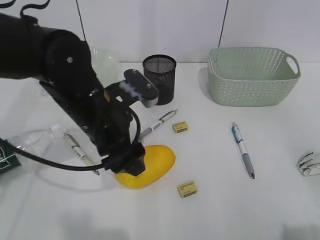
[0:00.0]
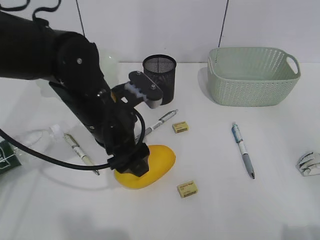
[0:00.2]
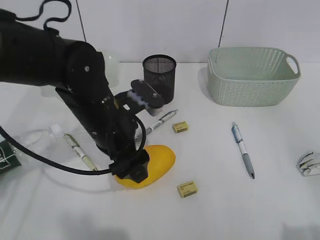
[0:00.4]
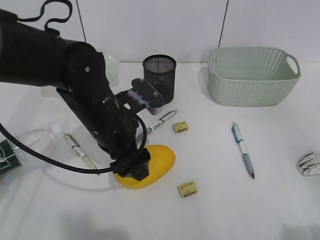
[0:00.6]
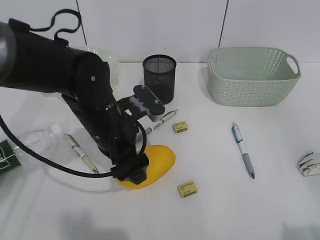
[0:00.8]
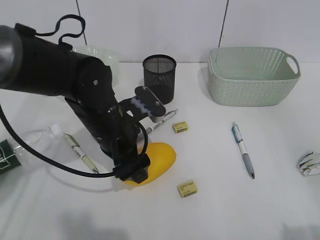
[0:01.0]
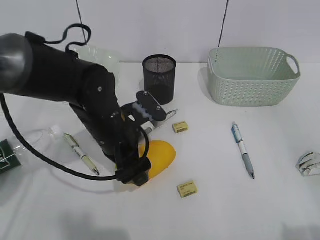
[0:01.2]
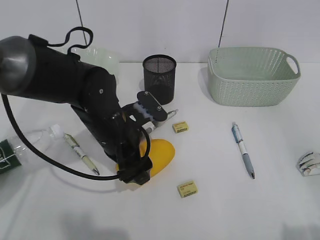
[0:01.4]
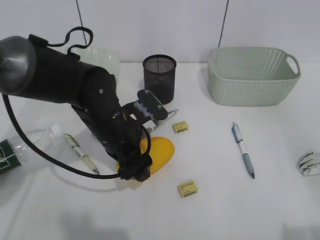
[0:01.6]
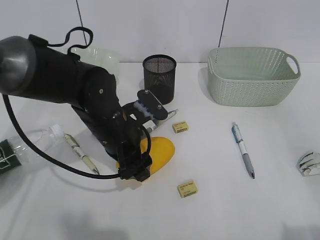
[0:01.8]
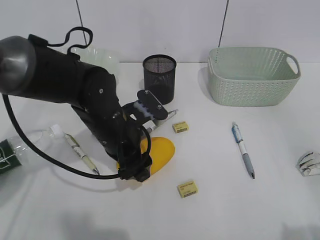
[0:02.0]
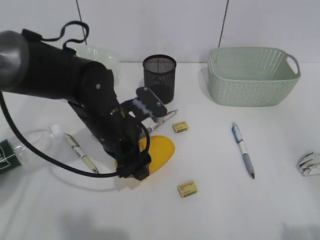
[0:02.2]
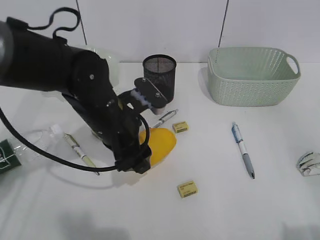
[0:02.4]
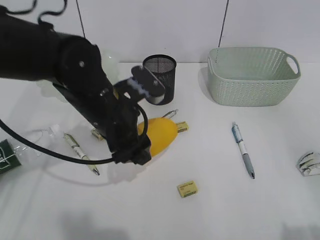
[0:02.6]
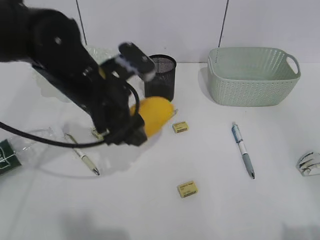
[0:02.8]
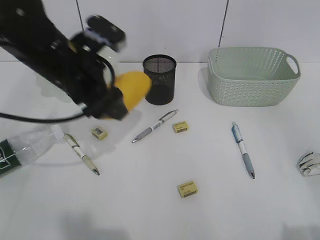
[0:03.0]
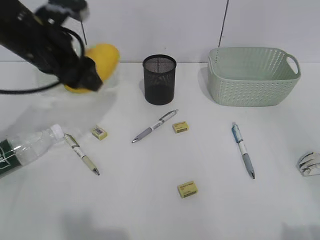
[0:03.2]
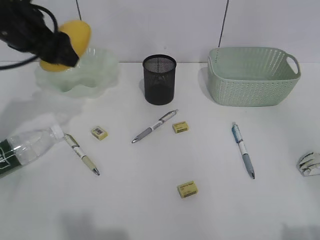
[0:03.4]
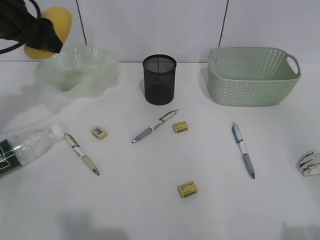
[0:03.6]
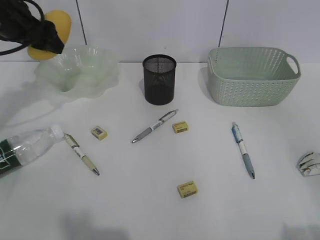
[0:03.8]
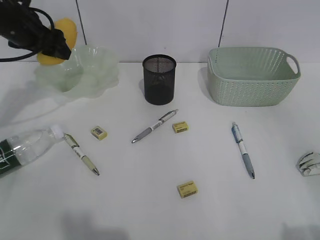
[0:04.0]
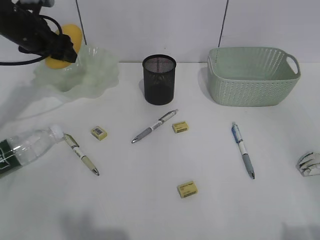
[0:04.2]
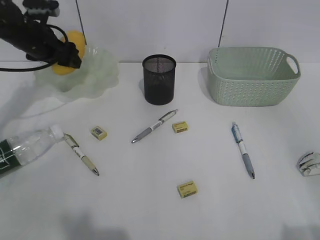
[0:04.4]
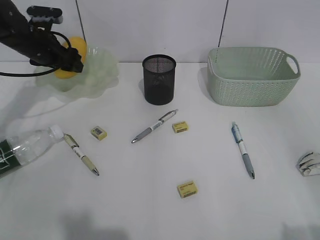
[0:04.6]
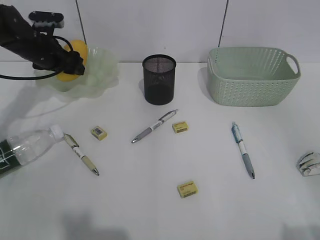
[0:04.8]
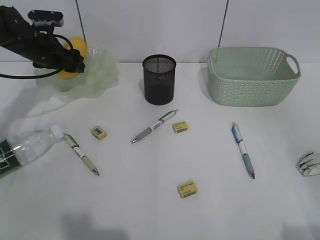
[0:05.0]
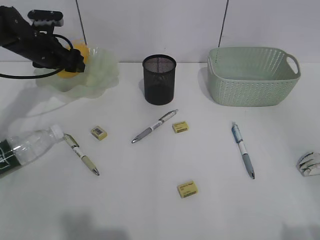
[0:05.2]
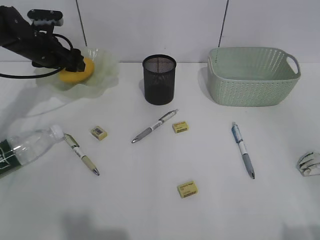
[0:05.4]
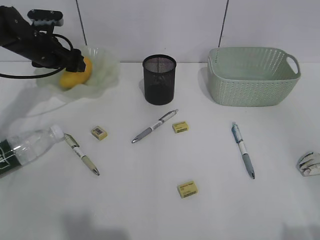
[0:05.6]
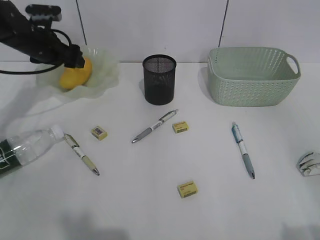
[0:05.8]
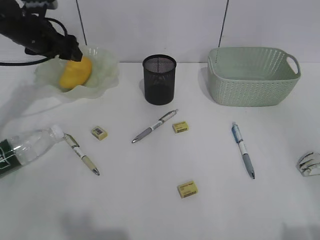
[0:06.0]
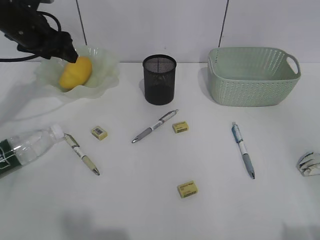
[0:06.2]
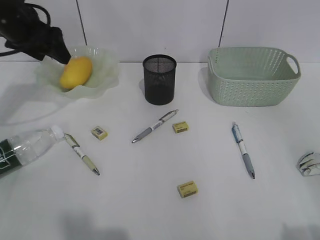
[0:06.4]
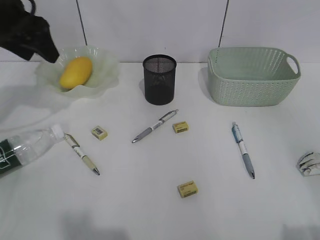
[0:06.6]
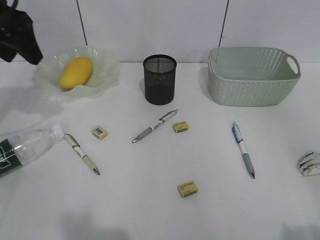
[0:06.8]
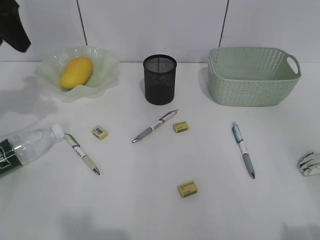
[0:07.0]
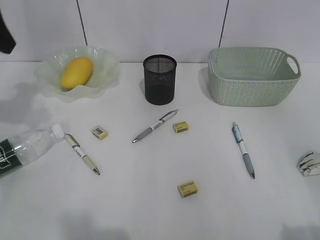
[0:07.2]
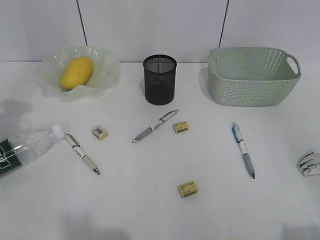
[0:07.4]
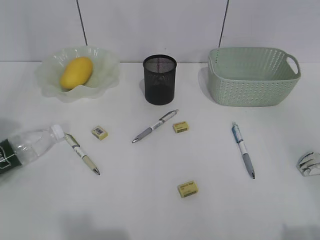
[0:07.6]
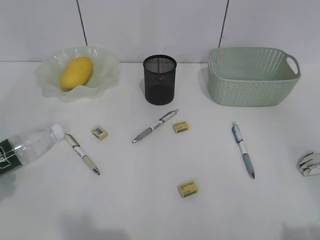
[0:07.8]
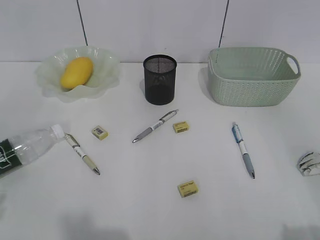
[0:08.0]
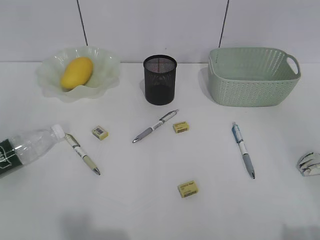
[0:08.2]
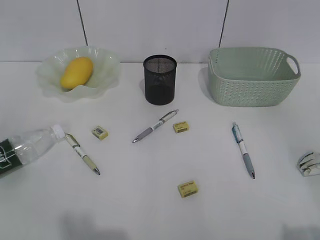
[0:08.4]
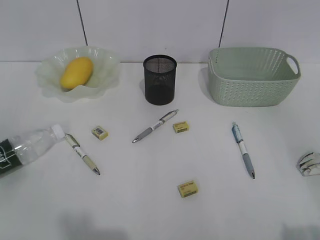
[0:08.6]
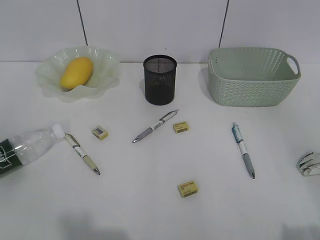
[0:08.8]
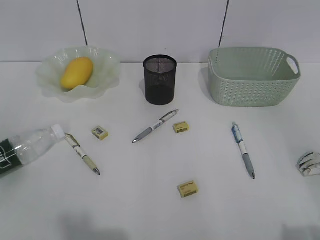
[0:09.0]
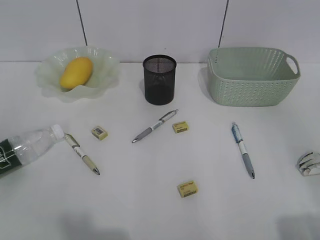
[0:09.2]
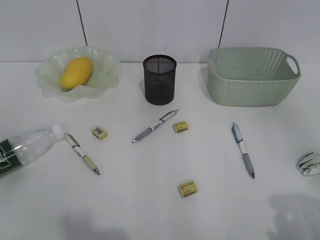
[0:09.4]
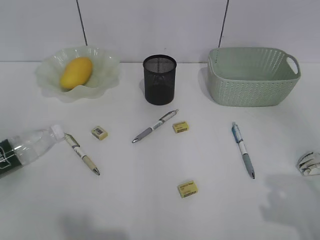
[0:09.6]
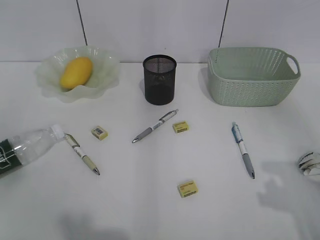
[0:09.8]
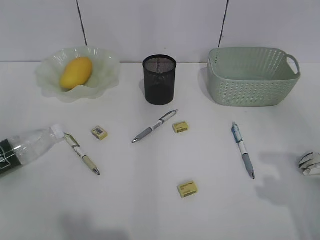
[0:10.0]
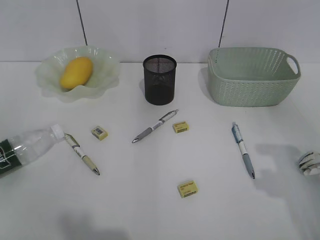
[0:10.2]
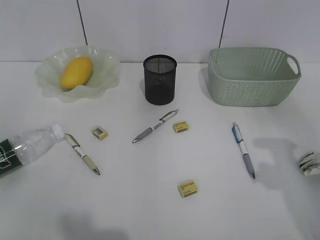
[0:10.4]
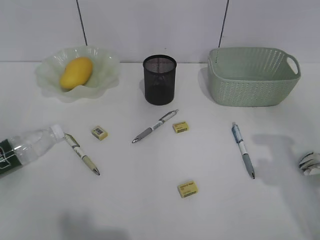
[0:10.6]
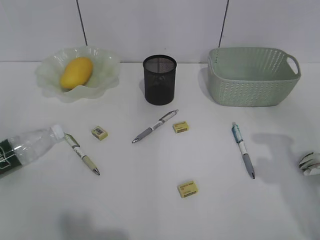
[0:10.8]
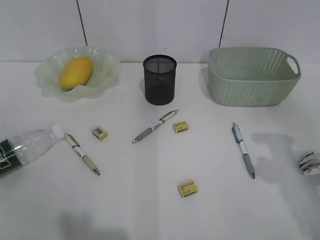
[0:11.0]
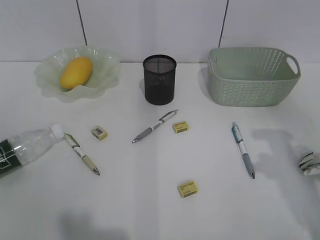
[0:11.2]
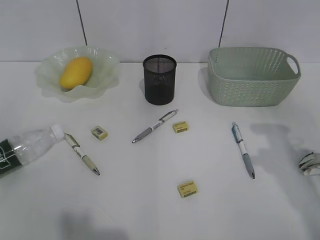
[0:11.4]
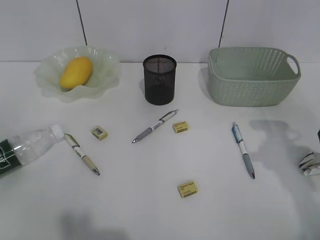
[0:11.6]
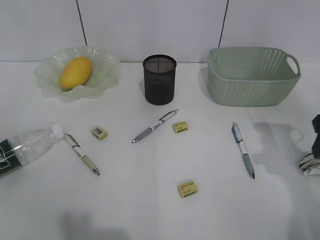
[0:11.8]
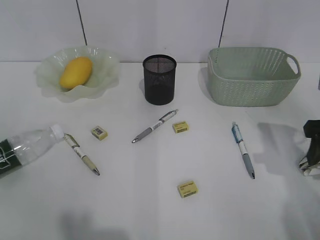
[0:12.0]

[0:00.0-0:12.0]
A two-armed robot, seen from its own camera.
Step, 0:02.0 to 0:05.8: Place the mango in the plate with left gripper.
0:00.0 to 0:01.6: The left gripper travels downward by roughly 5 cm.
0:01.6 to 0:03.0: The left gripper shifts about 10 cm upward and to the left.
0:03.0 to 0:04.4: The left gripper shifts roughly 20 cm forward and to the left.
0:04.4 to 0:06.0: The grippers move only a little.
0:06.0 to 0:07.6: The left gripper moves backward and upward, about 30 cm.
0:09.0 to 0:10.4: The right gripper shifts approximately 20 cm forward.
0:10.4 to 0:12.0: The right gripper heads forward and downward, covering about 10 cm.

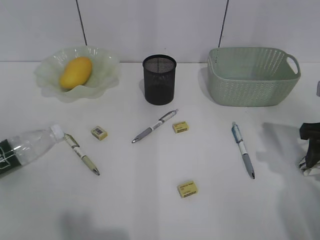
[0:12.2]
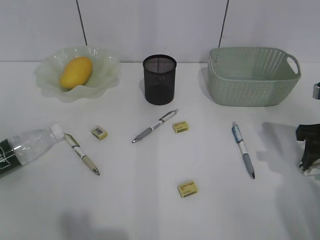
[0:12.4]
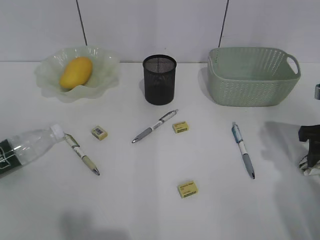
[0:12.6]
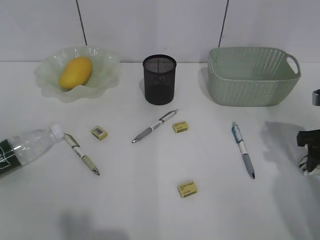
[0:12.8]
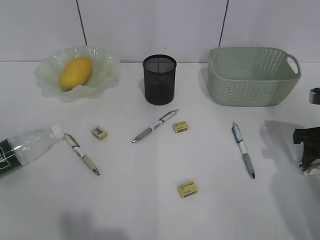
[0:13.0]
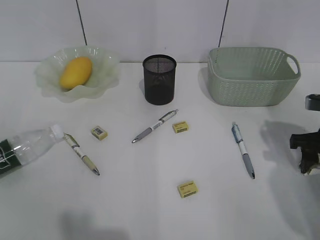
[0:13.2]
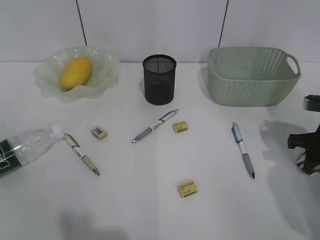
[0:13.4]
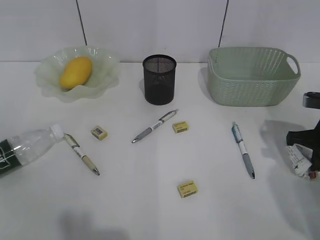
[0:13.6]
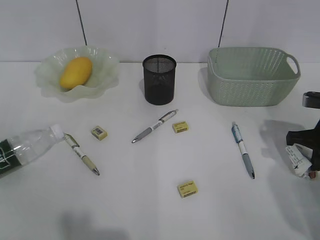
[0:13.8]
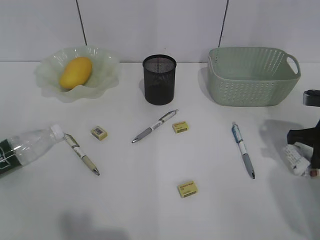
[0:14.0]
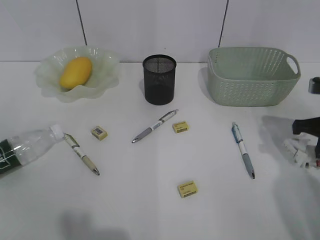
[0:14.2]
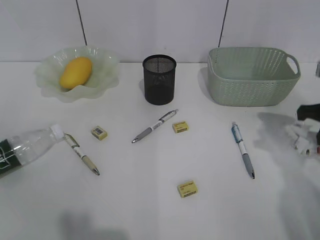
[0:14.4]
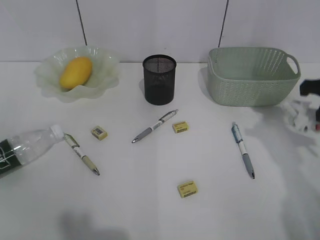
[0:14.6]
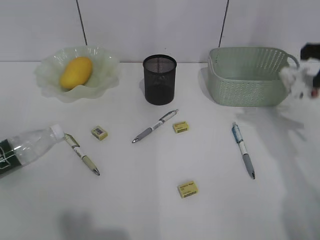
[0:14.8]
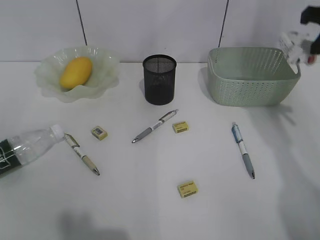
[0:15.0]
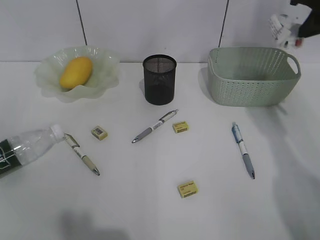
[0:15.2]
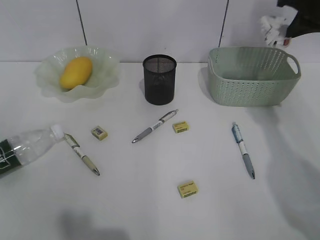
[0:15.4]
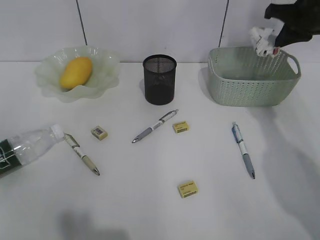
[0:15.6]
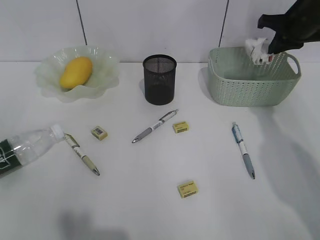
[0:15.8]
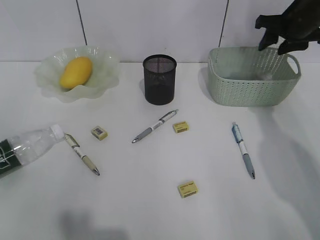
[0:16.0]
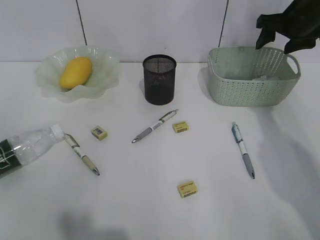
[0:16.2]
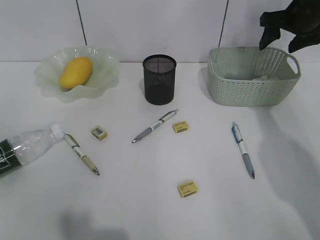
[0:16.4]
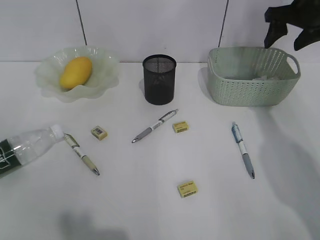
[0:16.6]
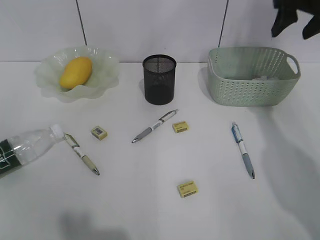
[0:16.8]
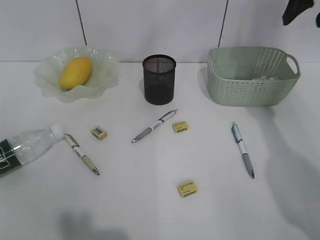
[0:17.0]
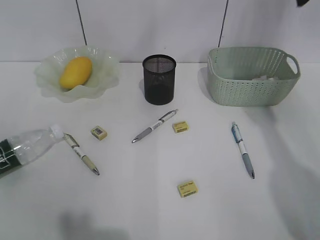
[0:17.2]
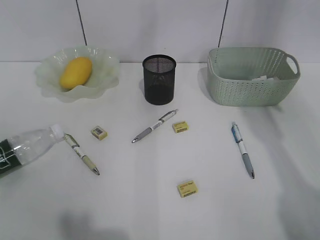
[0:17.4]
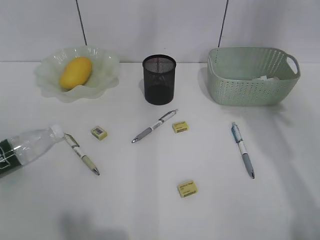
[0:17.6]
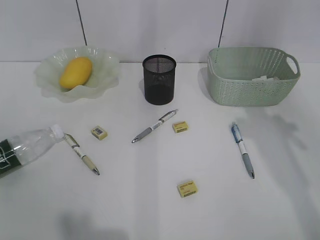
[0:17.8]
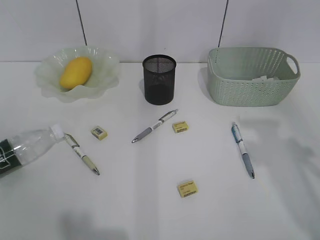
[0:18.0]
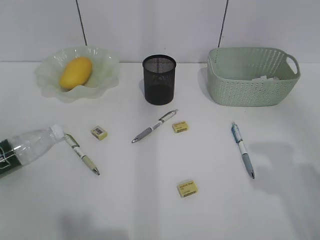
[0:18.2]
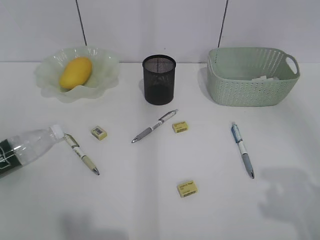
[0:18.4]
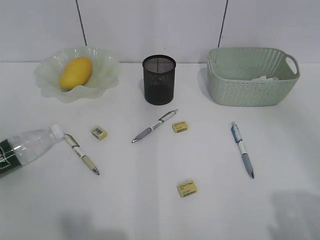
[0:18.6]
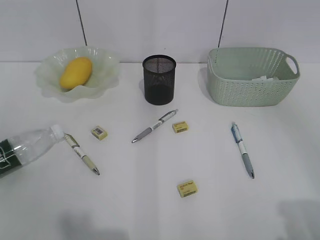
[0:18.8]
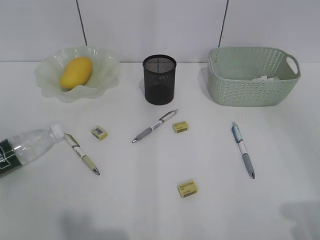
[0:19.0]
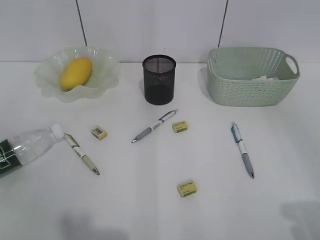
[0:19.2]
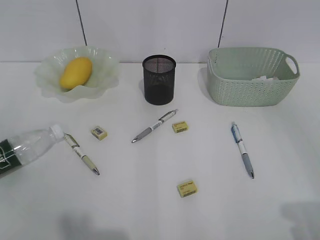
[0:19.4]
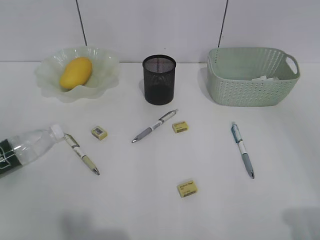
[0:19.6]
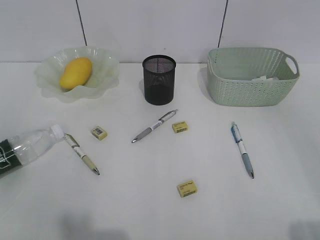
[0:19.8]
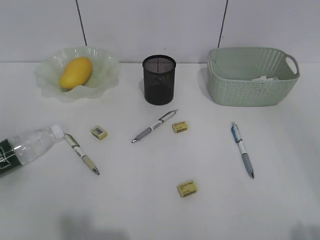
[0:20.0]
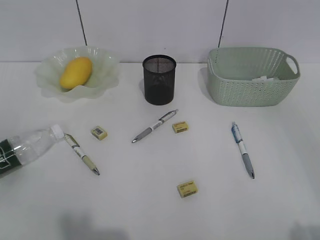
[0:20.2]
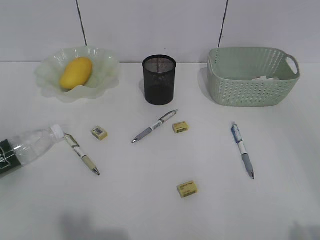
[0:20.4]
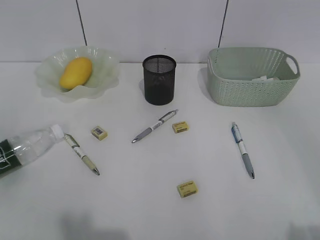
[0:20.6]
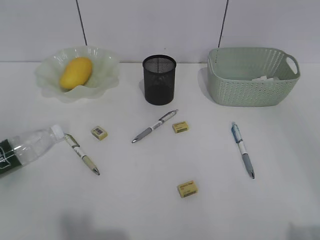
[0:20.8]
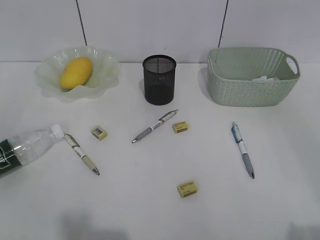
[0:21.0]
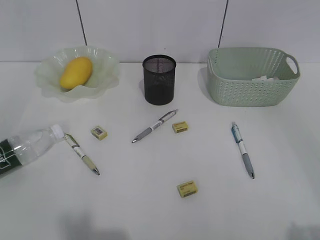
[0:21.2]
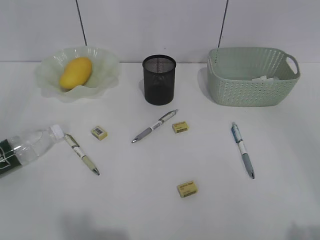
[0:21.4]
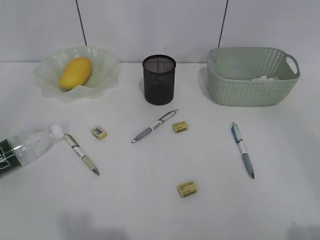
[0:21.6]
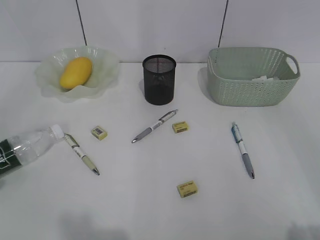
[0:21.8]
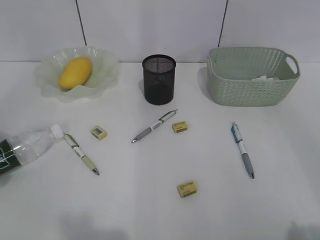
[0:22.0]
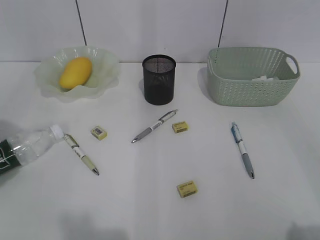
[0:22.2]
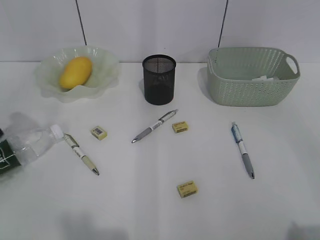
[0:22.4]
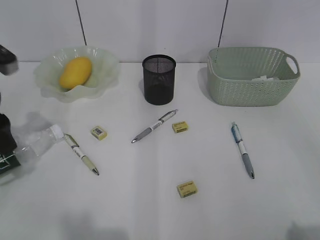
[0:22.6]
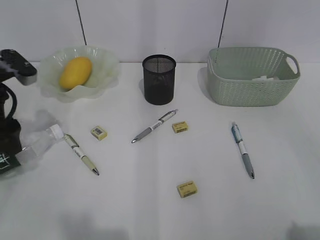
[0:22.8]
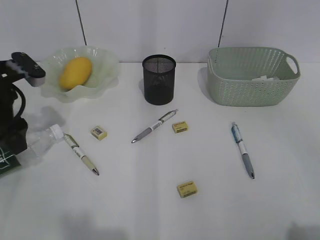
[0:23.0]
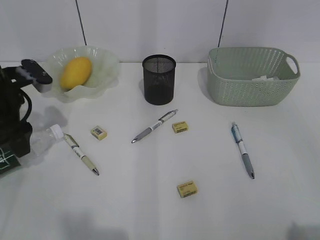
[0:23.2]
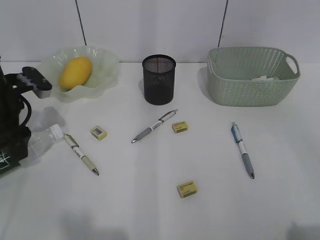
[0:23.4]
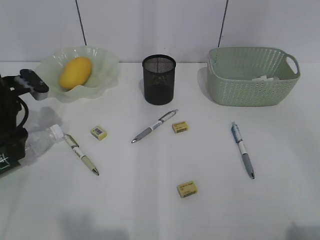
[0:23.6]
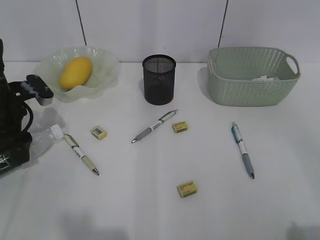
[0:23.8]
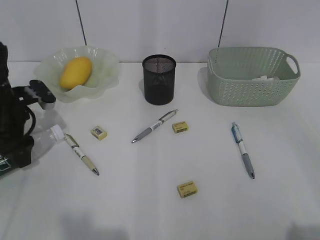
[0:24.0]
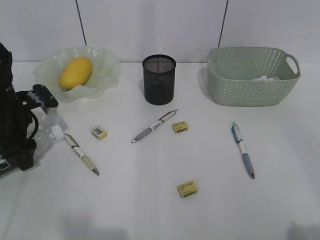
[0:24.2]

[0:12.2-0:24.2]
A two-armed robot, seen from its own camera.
Step, 0:14.0 to 0:16.0: Place the waste paper in the basket with right gripper.
0:12.2 to 0:13.8: The right gripper heads downward, covering about 5 cm, and closes up.
0:13.8 to 0:15.2: The right gripper is displaced upward and forward by approximately 20 cm.
0:15.2 to 0:16.6: The right gripper is displaced forward by about 5 cm, and opens its fingers.
0:16.6 to 0:18.2: The right gripper travels backward by roughly 30 cm.
0:21.2 to 0:22.6: The left gripper moves forward, some 25 cm.
0:22.6 to 0:24.2: The left gripper heads downward and forward, covering about 15 cm.
